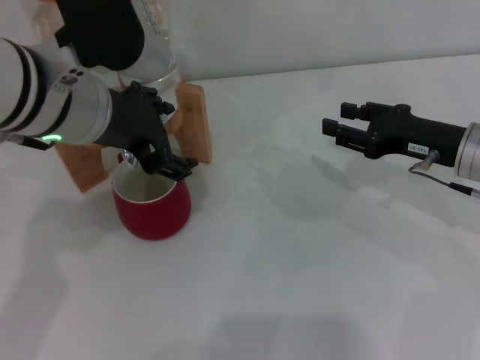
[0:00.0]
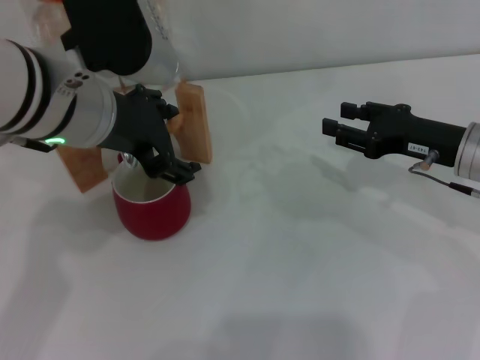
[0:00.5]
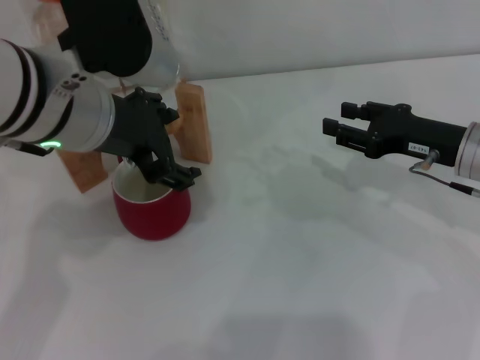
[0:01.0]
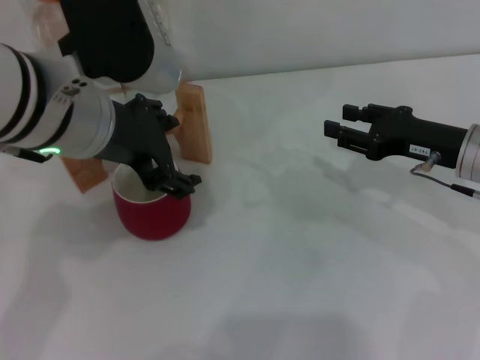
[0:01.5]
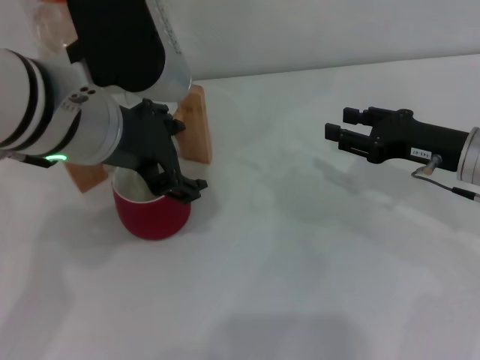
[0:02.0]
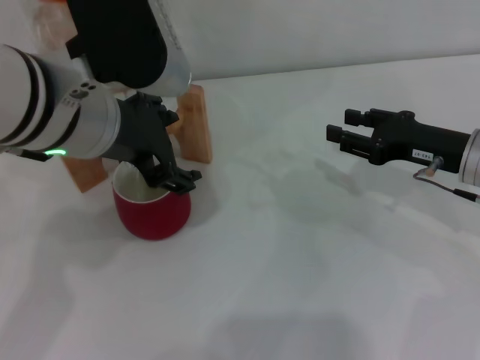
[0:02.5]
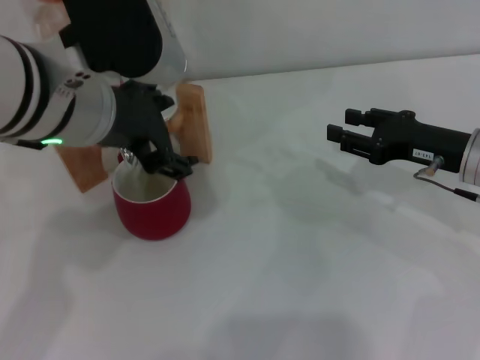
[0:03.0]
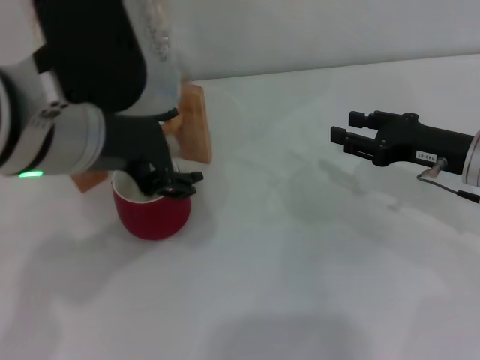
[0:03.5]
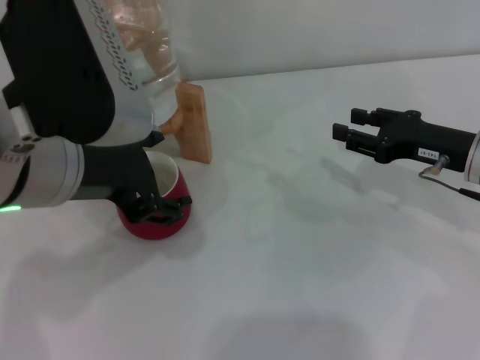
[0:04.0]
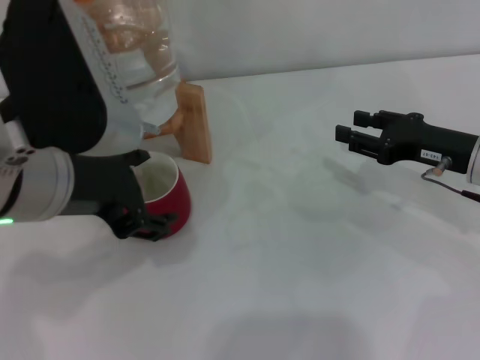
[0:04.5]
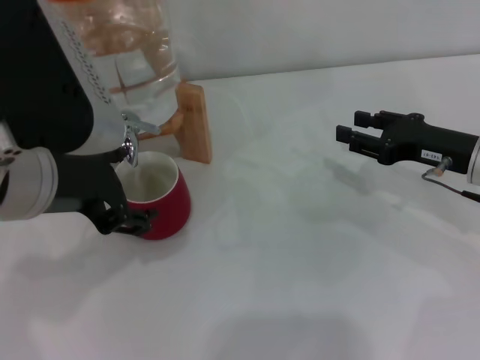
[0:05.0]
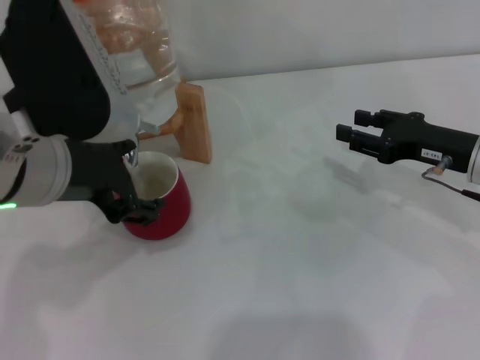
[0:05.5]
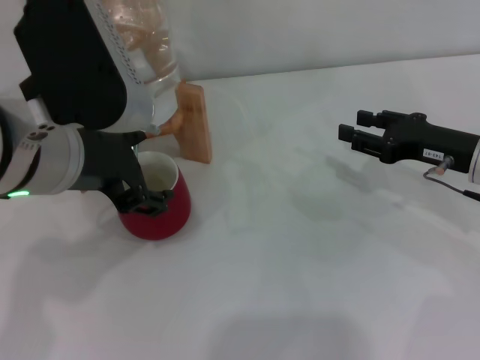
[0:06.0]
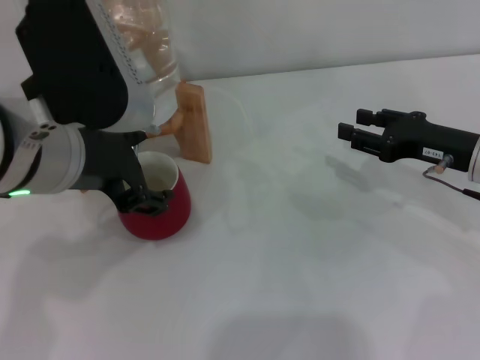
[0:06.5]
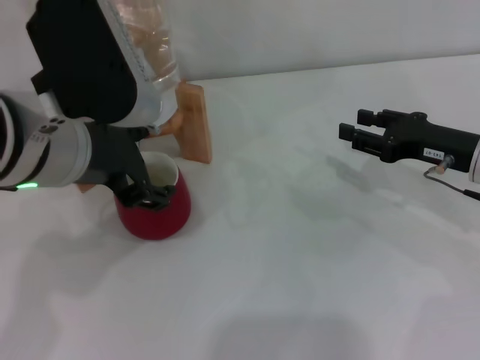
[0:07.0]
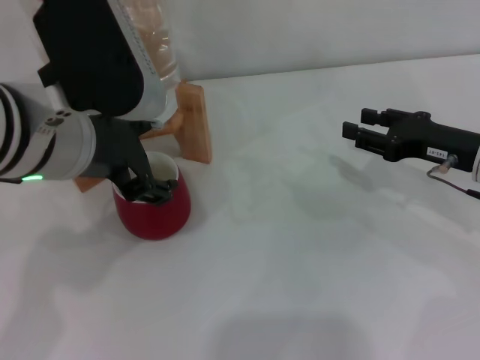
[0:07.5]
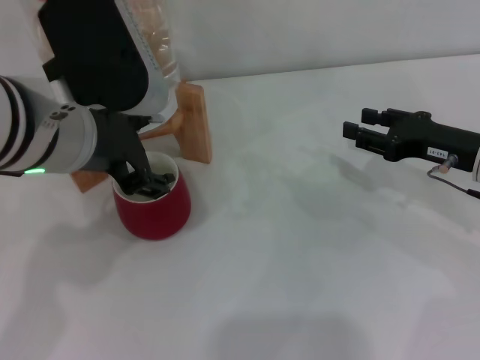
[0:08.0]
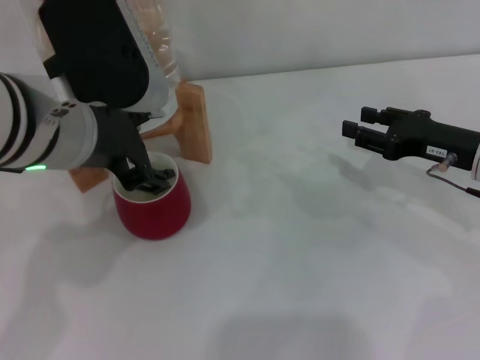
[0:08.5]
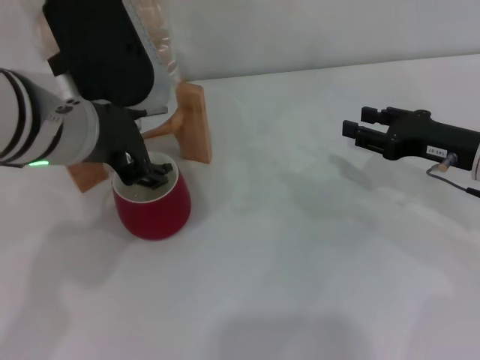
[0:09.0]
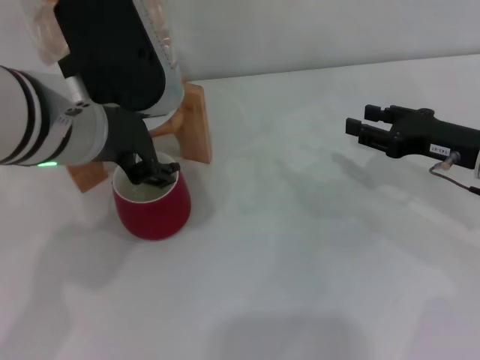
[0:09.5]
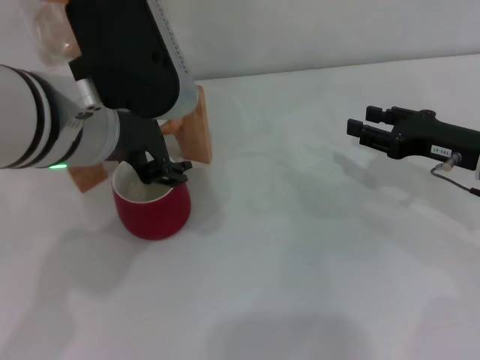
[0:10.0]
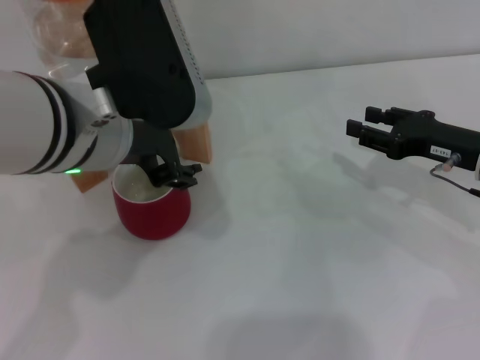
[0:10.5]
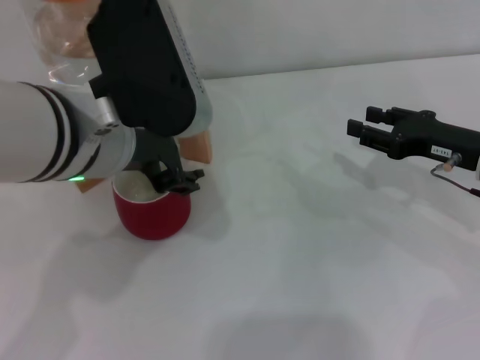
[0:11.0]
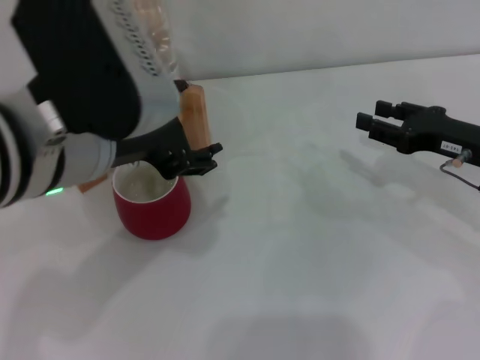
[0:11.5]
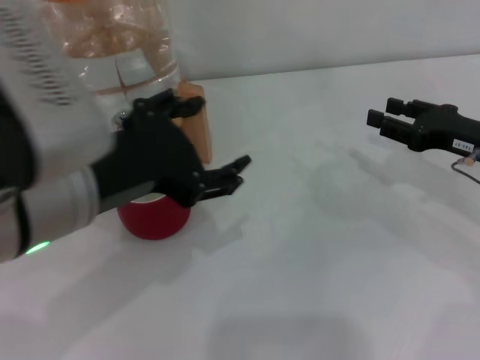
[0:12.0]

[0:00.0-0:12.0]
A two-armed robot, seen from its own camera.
Task of the whole recording: the right gripper pick up the red cup and place it horizontally under the faucet, the left gripper turn on the faucet to fill the cup, and then turn off the faucet.
Step, 0:00.0 to 0:06.0: Open the dispenser valve and fill the cup with water with the left gripper.
Step, 0:06.5 to 0:11.5: Close the dispenser valve with the left gripper.
0:00.0 to 0:02.0: There are only small adjustments of the grippers.
0:02.0 to 0:04.0: The left gripper moves approximately 5 cm.
0:04.0 to 0:10.0: The grippers make only small movements.
0:10.0 to 0:12.0: The left gripper travels backward by about 5 cm.

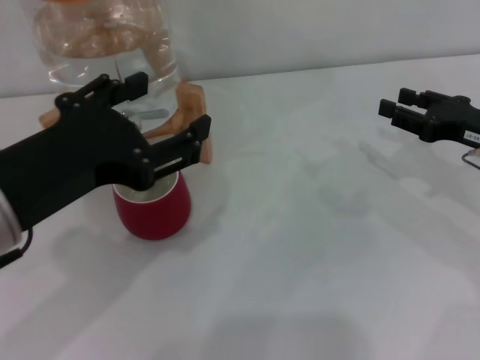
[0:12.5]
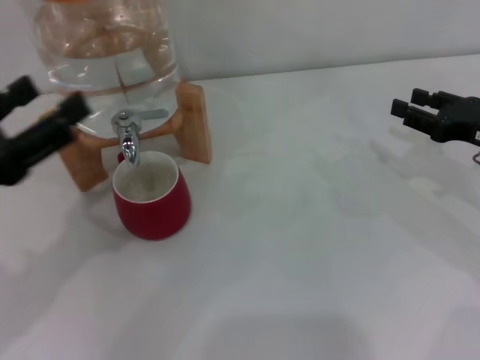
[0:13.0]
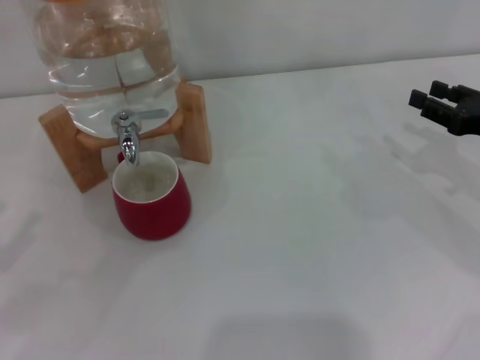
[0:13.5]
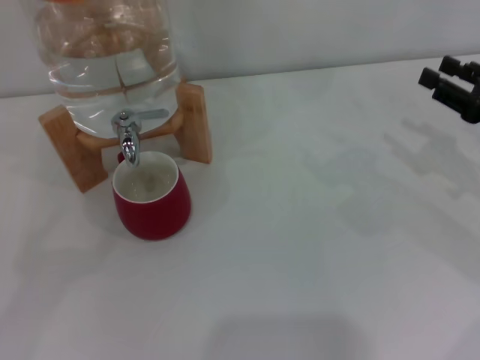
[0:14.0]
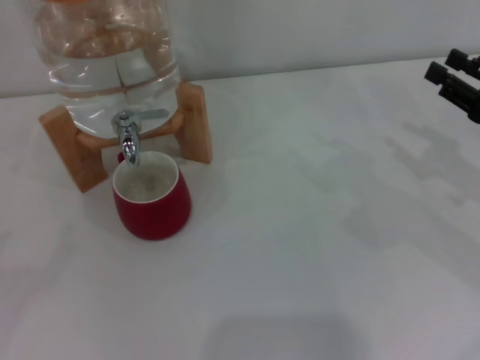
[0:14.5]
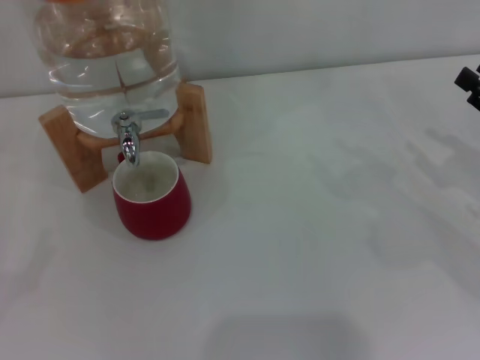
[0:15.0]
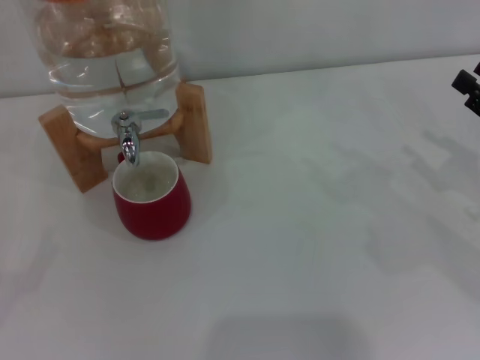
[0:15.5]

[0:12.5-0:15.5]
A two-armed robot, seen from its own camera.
Task of the whole recording: the right gripper pick up the red cup and place it horizontally under the faucet, the left gripper turn on the faucet to fill the cup, and then turn off the faucet.
0:12.5 to 0:14.0: The left gripper heads to the left and downward, covering roughly 25 cm.
0:14.0 to 0:15.5: The grippers make only small movements.
